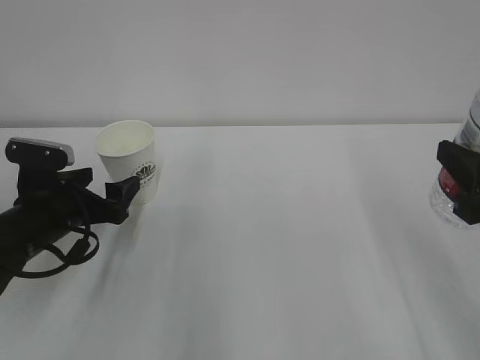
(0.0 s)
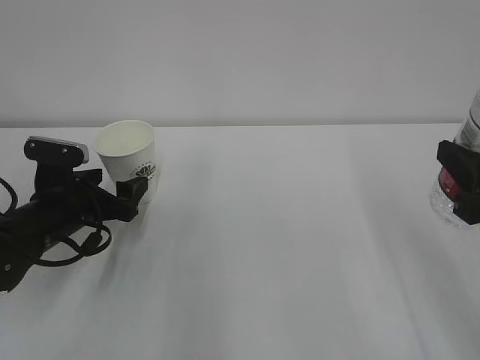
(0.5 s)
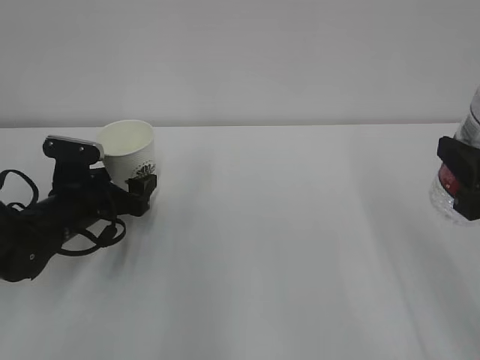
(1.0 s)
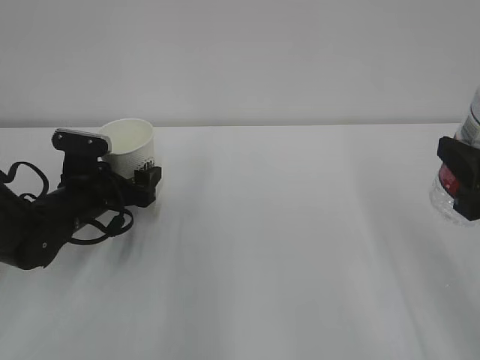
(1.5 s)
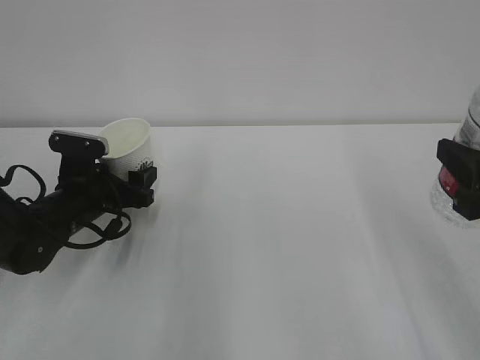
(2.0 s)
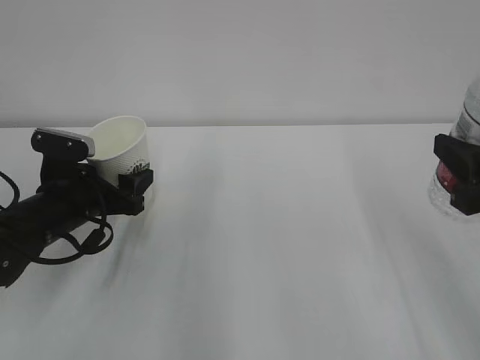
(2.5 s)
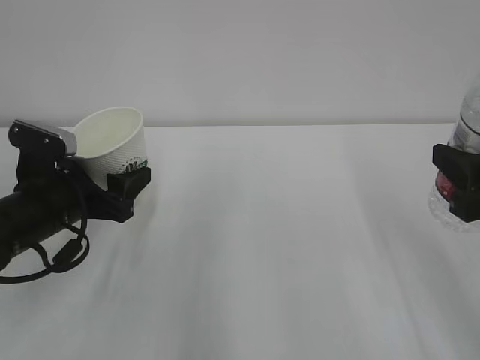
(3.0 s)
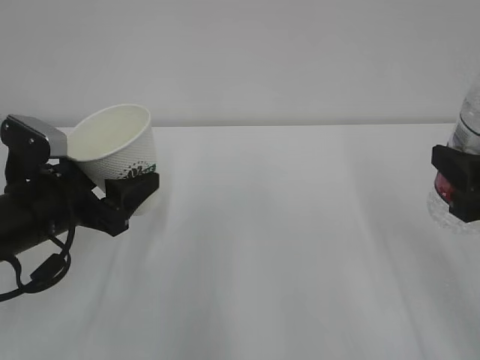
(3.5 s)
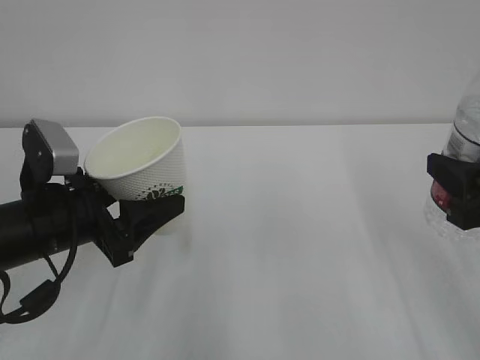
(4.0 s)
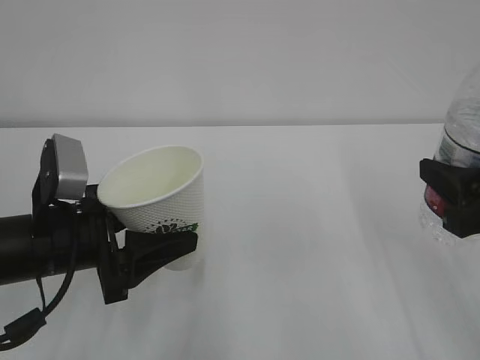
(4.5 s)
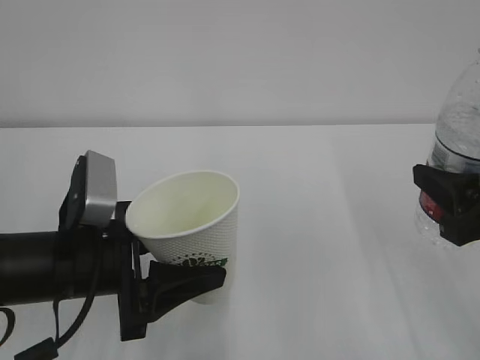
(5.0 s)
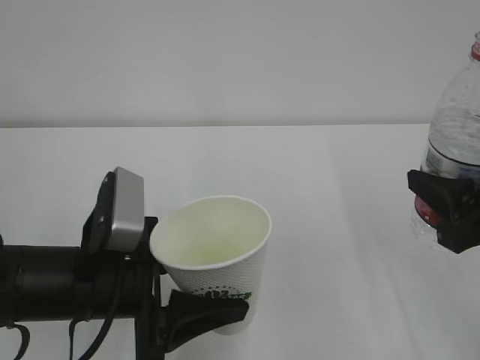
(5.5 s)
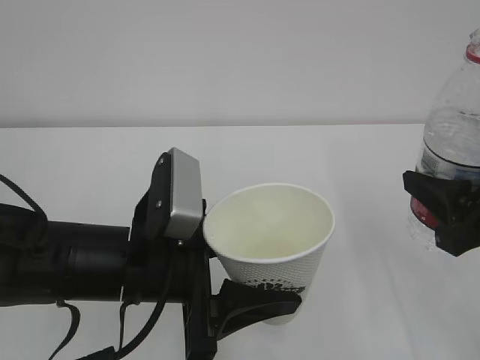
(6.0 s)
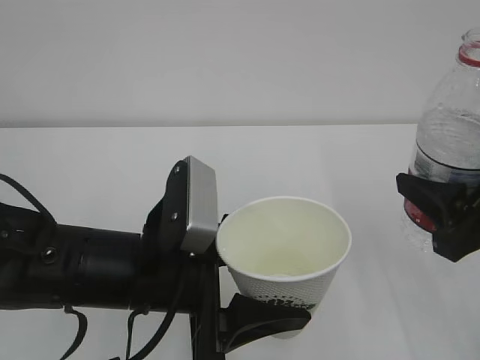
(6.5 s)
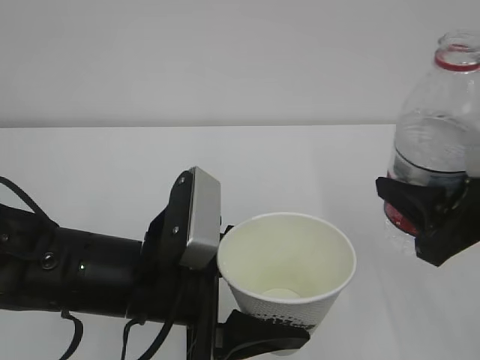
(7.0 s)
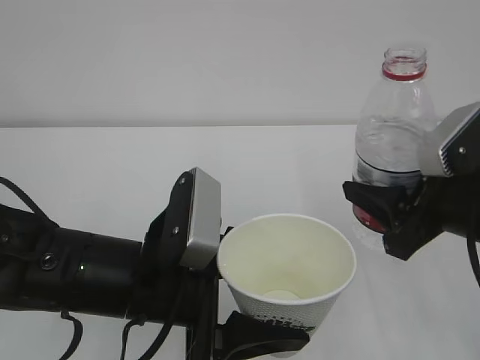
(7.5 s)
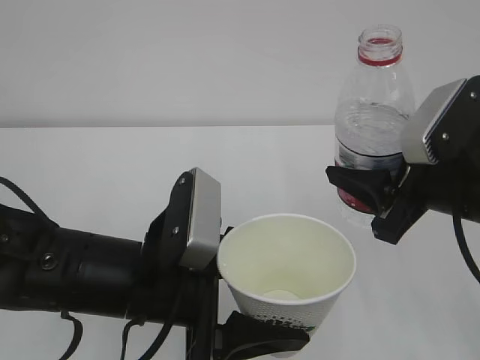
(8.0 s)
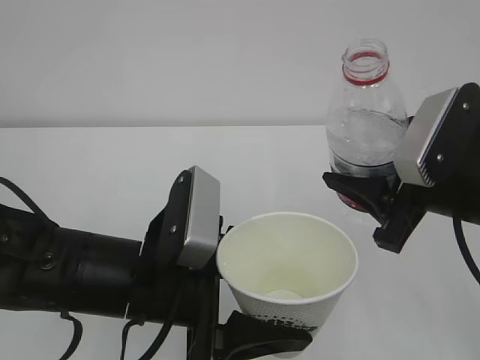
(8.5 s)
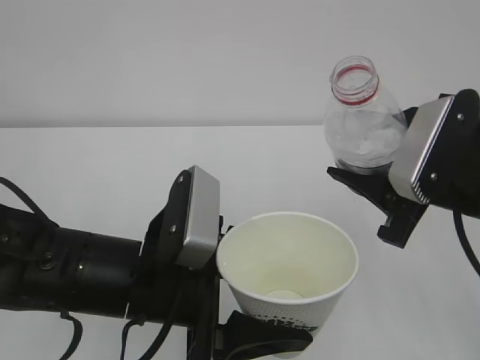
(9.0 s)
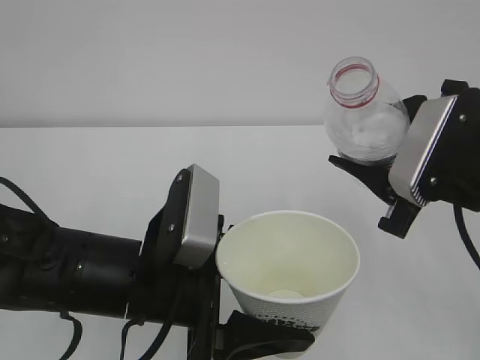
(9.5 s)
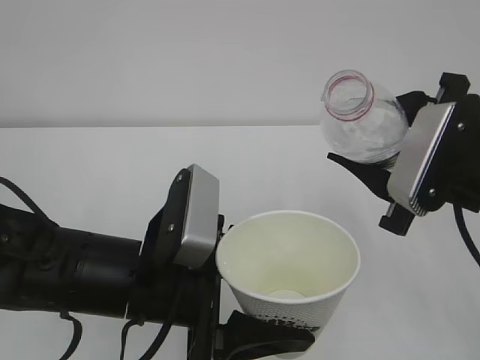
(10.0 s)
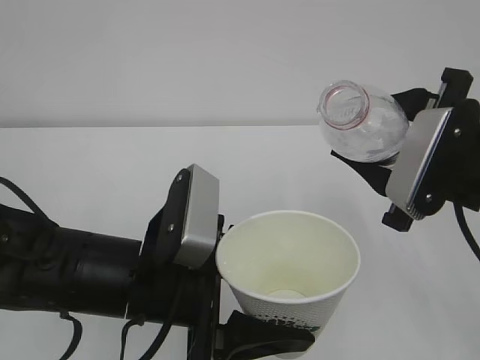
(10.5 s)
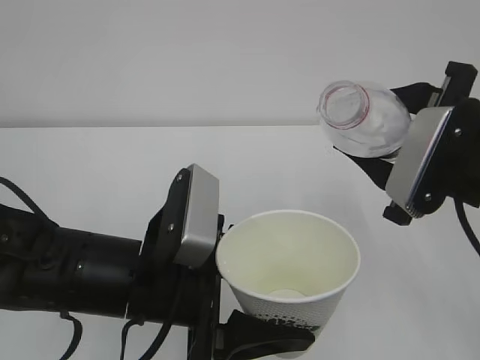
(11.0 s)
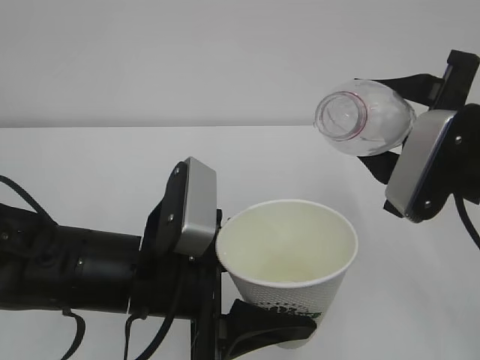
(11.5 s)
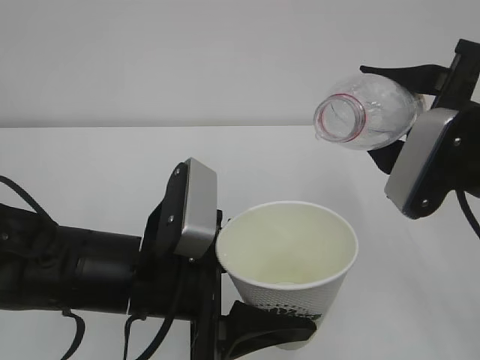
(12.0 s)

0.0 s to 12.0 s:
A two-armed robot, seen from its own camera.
0.0 to 2.0 s: The left gripper goes approximately 5 cm forward, and closes its fingers.
2.0 to 4.0 s: The left gripper shifts some 15 cm backward and upward.
4.0 to 6.0 s: The left gripper goes approximately 10 cm to the right.
6.0 to 8.0 s: The right gripper changes place by approximately 5 cm.

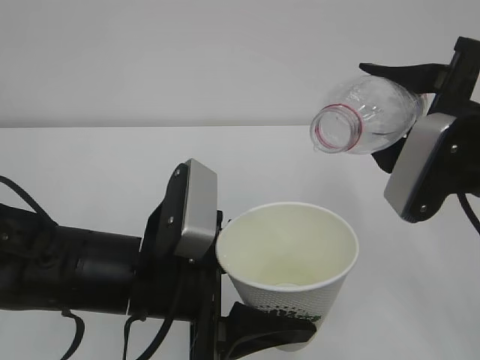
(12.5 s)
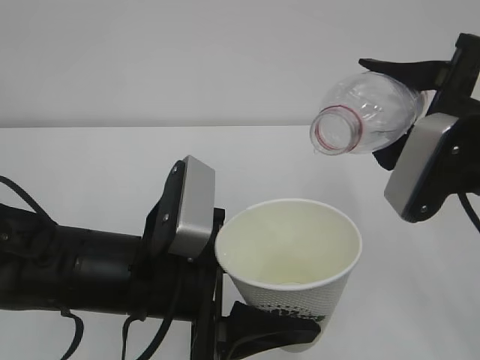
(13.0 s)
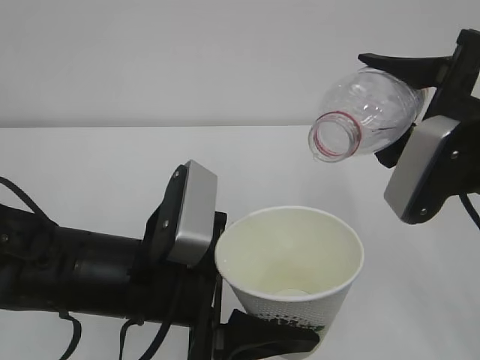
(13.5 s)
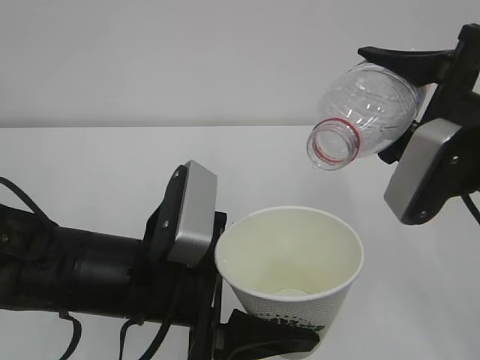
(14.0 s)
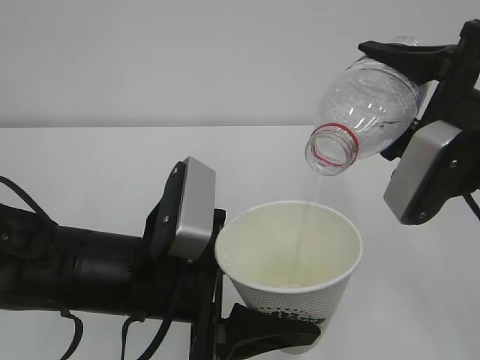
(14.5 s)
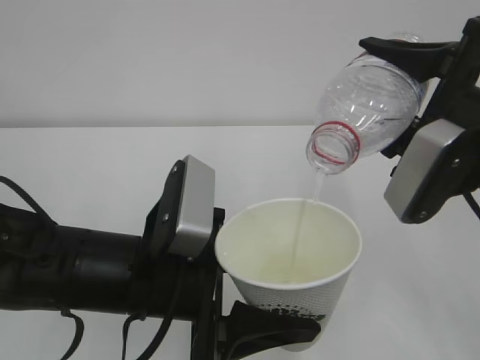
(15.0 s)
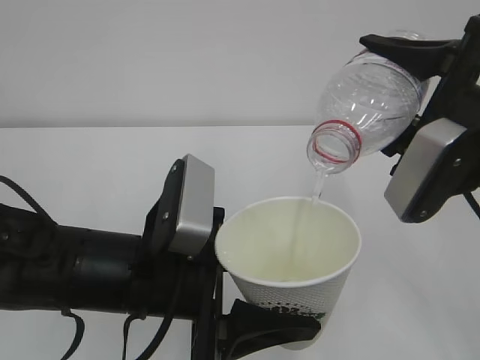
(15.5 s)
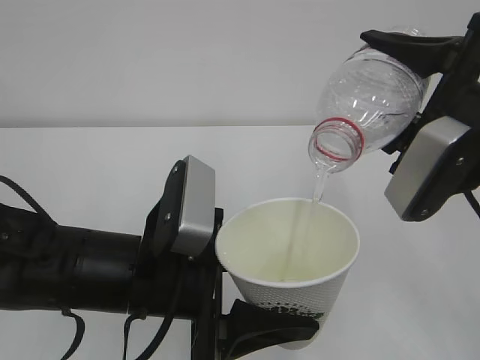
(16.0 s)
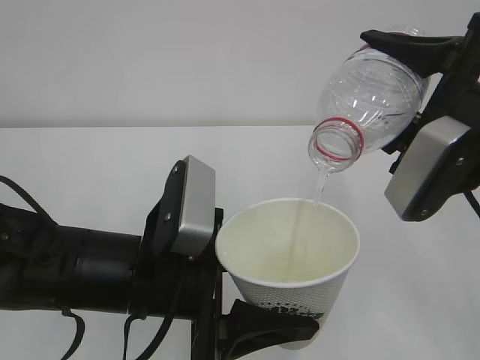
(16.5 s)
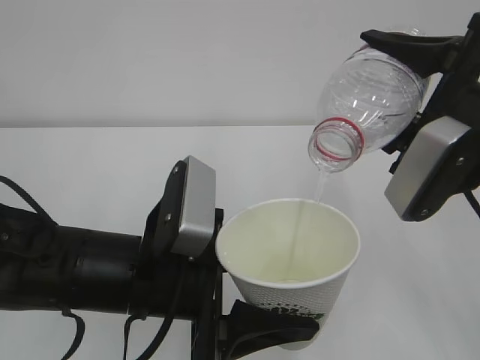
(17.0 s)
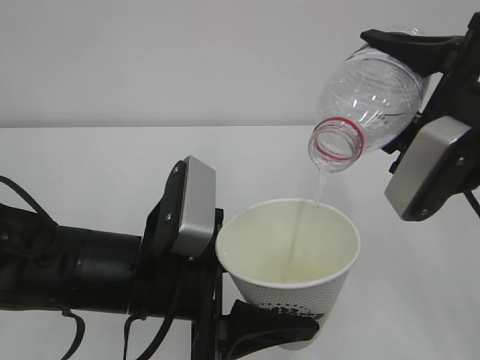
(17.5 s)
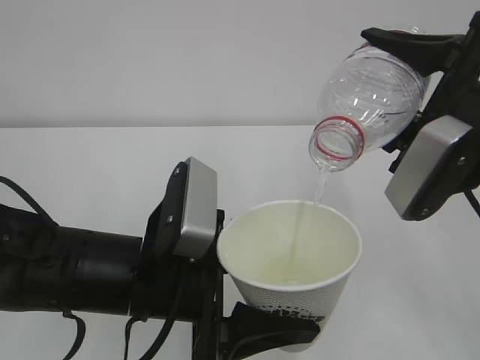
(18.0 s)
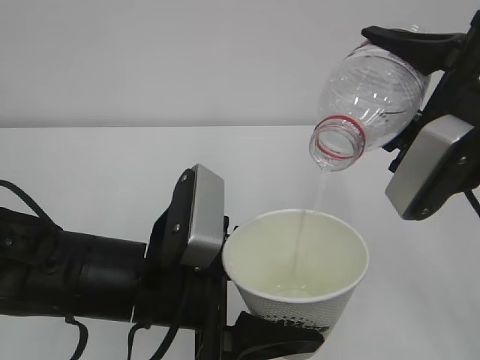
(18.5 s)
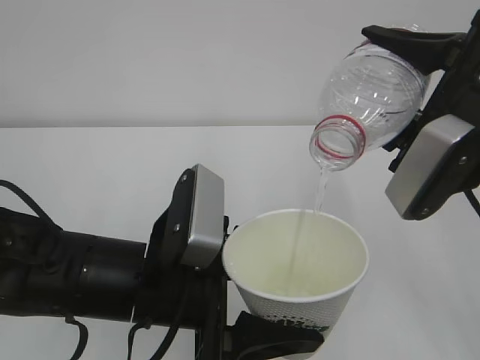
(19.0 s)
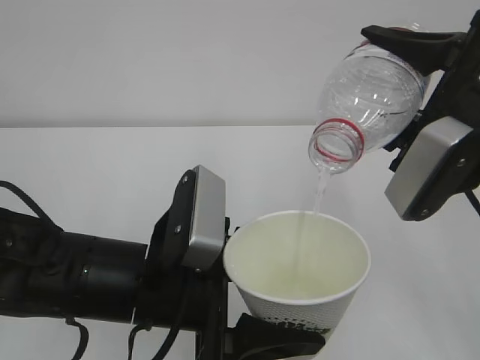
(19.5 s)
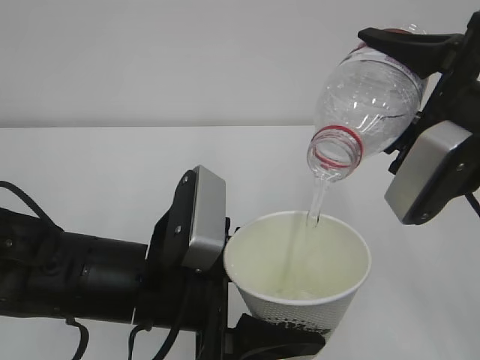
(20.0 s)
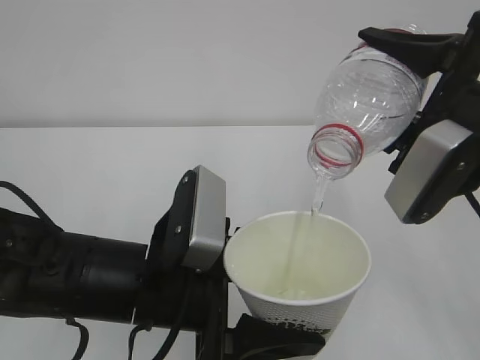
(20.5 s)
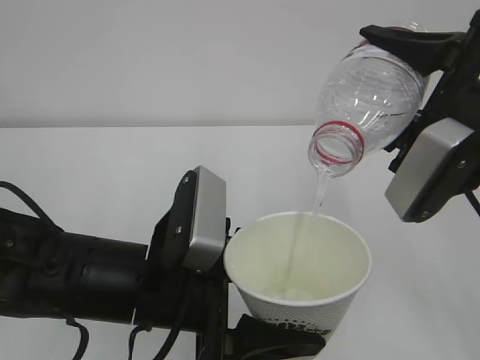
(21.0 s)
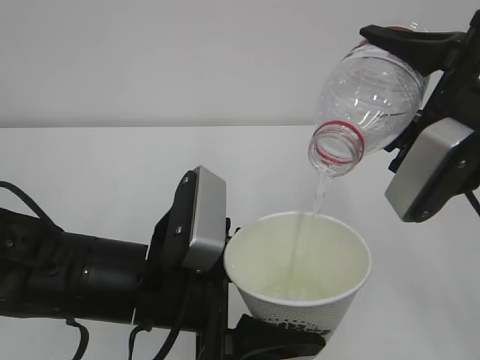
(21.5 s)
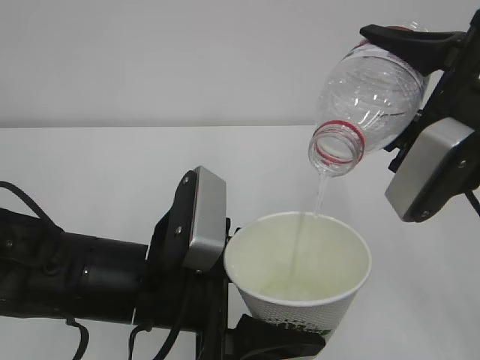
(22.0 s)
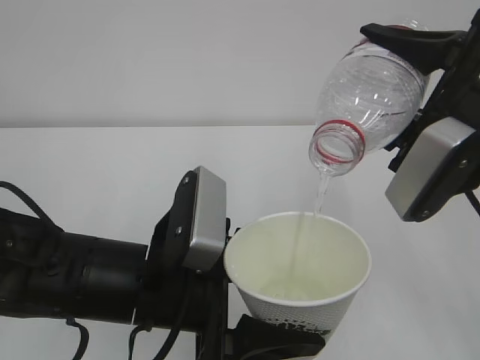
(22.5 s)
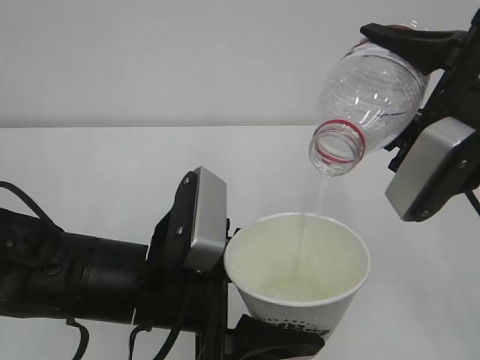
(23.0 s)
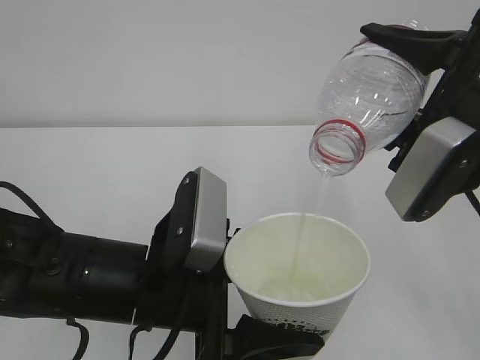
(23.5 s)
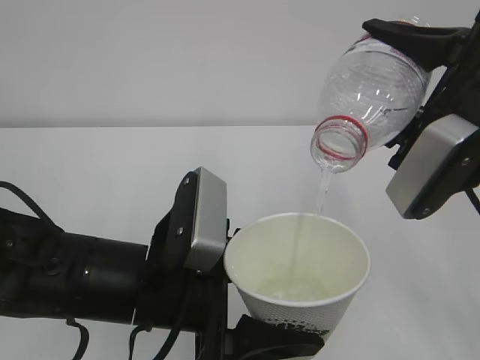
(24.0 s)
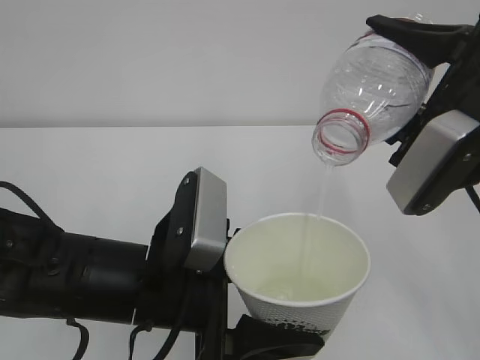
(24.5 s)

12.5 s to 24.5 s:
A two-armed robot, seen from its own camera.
12.5 to 14.5 s: The grippers move only a little.
14.5 to 20.5 s: Neither gripper changes place.
20.5 to 24.5 s: Both grippers stay about where they are.

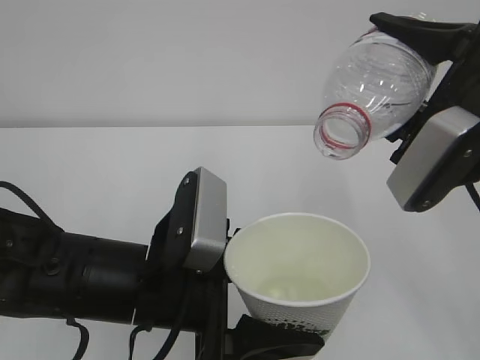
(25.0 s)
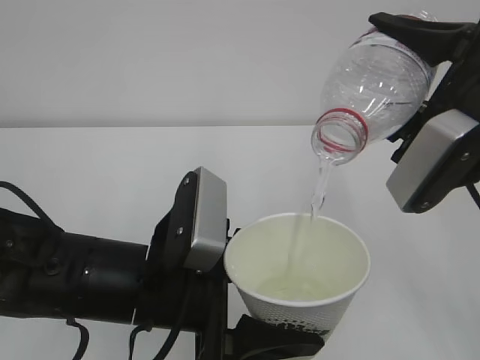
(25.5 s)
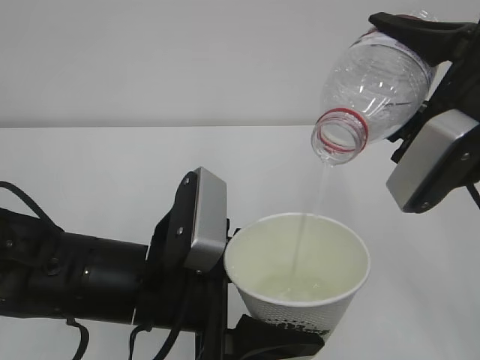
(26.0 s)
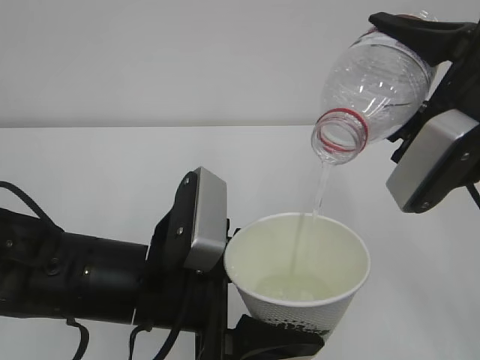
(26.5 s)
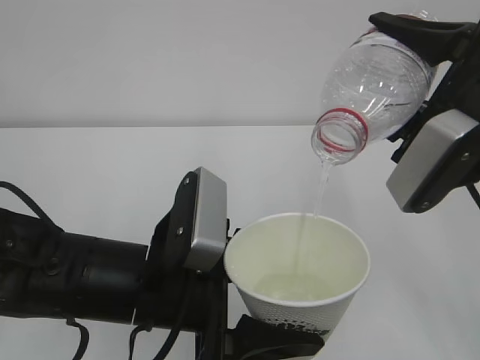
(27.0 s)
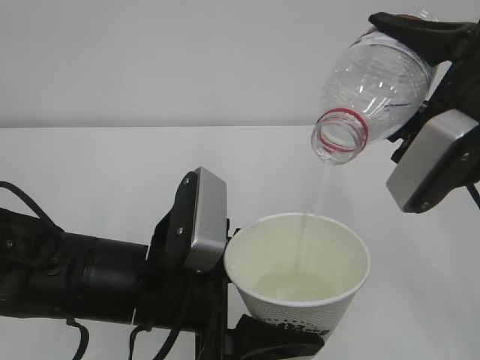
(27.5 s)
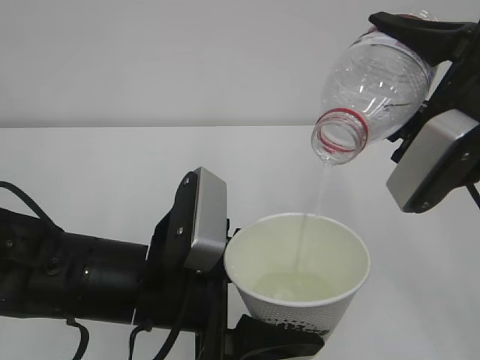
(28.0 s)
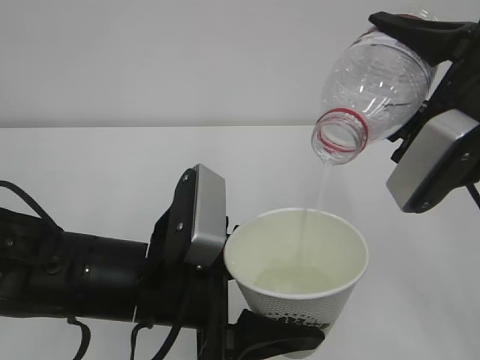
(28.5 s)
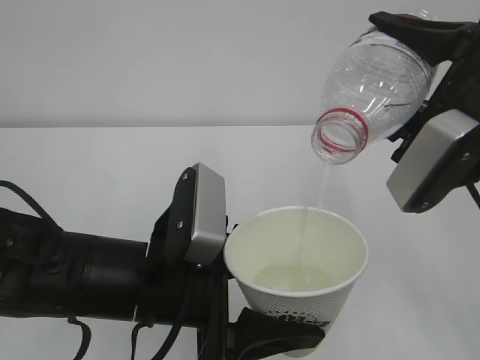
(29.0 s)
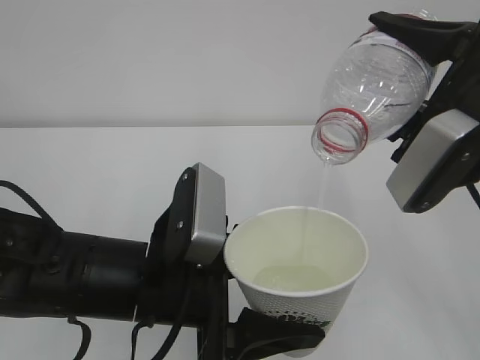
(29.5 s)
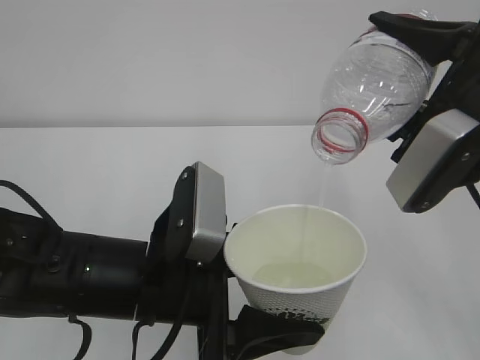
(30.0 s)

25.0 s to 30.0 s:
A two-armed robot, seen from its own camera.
25.0 to 30.0 s: Neither gripper changes place.
